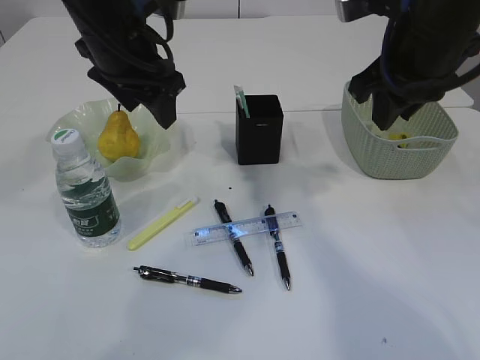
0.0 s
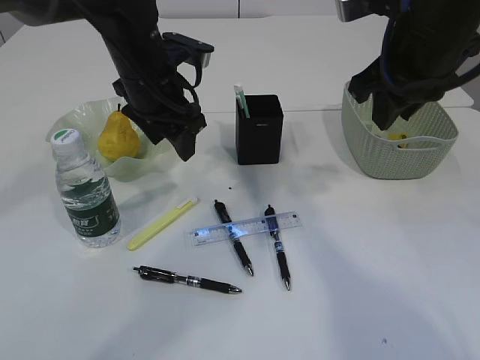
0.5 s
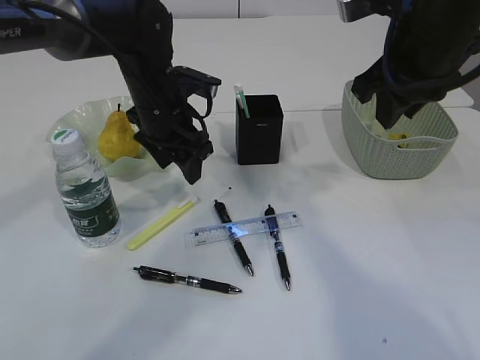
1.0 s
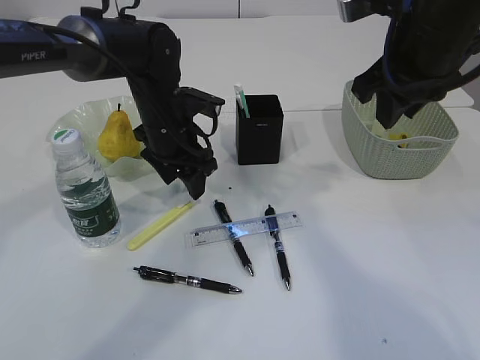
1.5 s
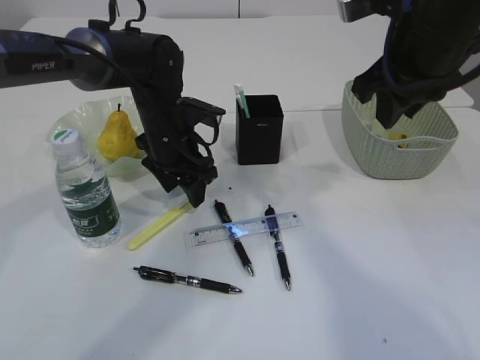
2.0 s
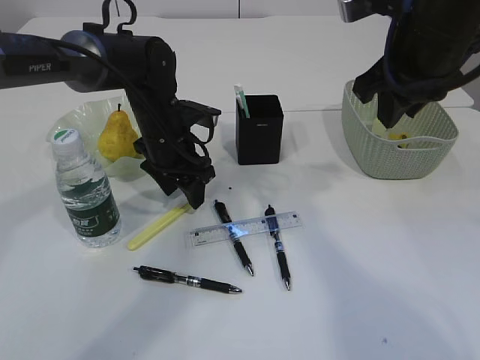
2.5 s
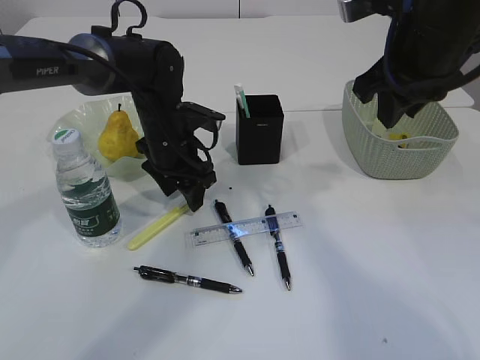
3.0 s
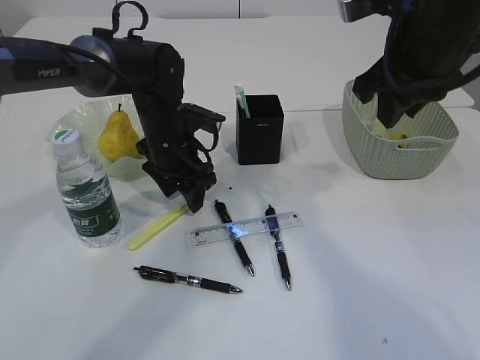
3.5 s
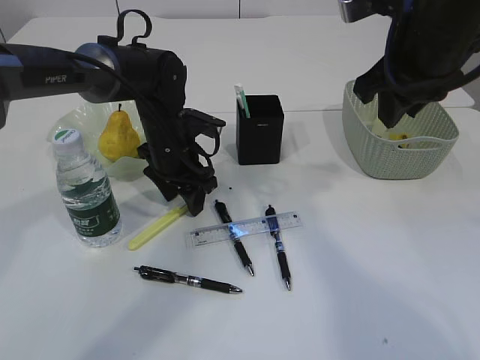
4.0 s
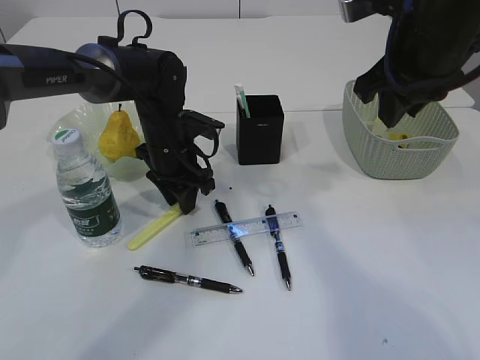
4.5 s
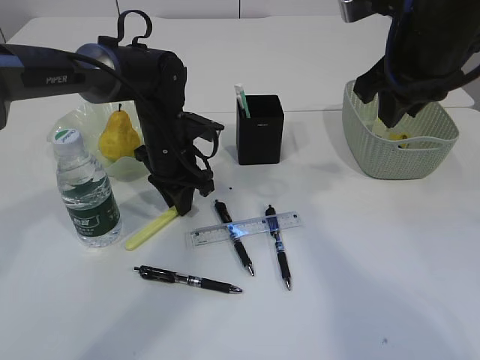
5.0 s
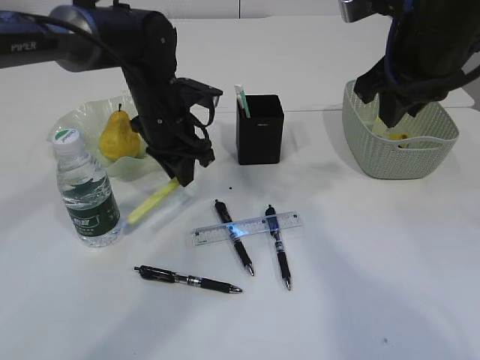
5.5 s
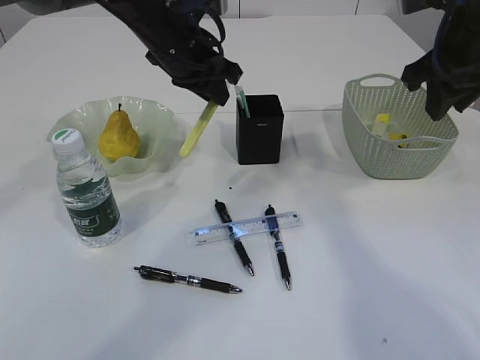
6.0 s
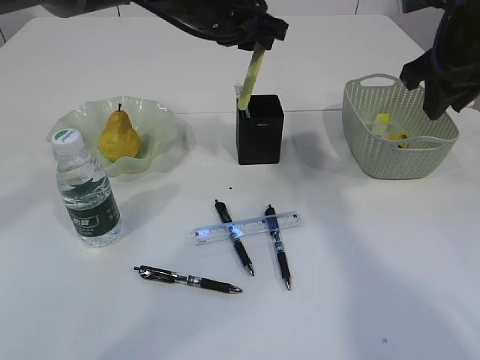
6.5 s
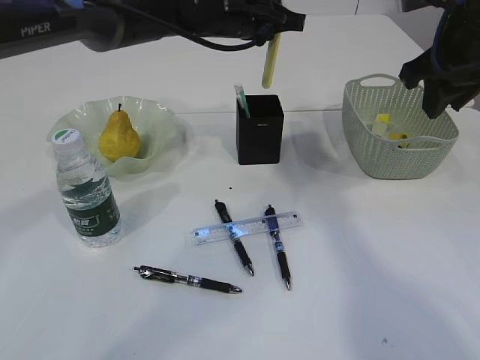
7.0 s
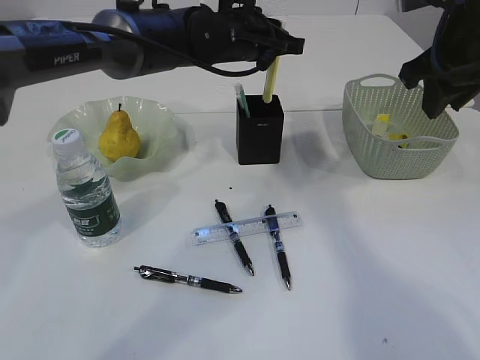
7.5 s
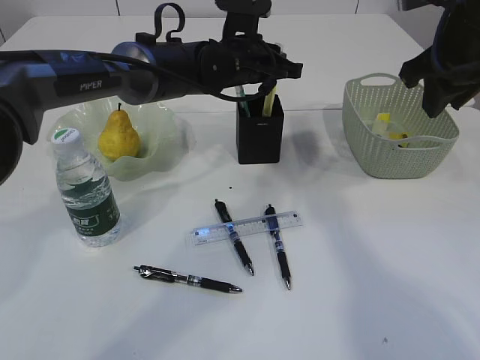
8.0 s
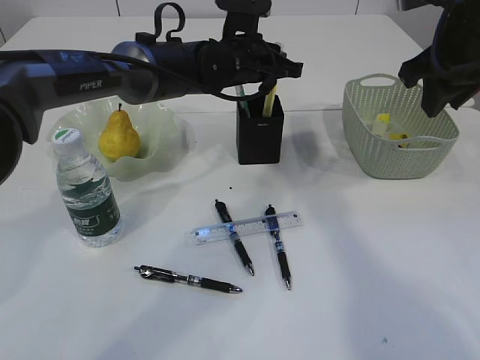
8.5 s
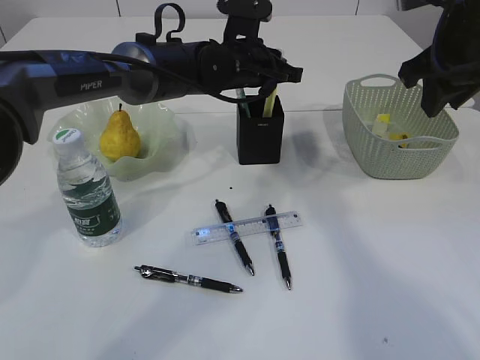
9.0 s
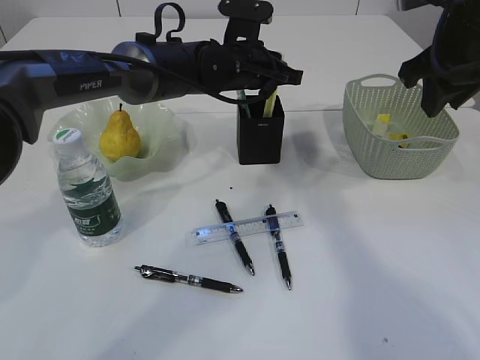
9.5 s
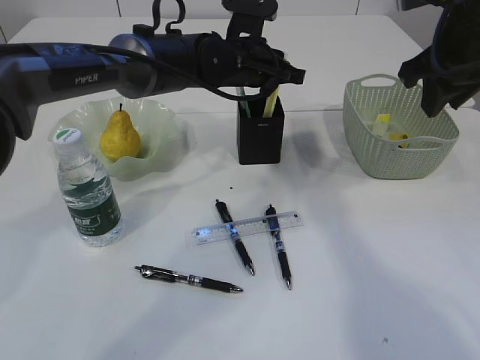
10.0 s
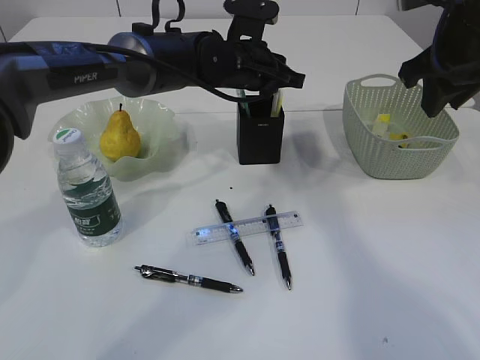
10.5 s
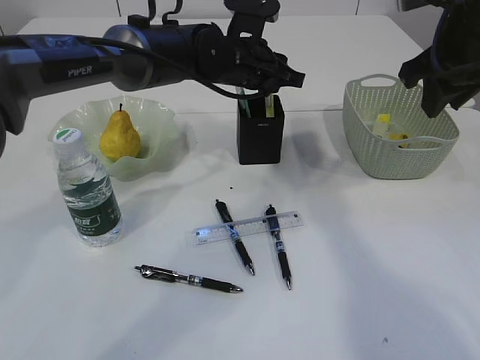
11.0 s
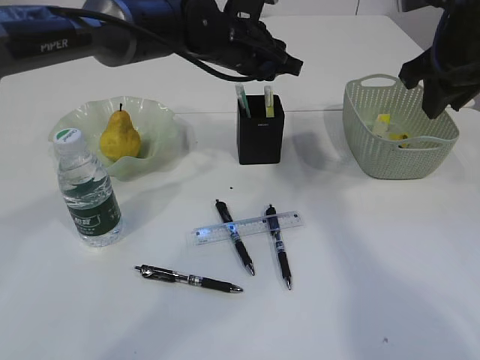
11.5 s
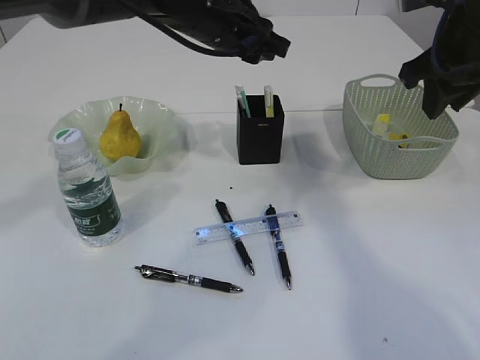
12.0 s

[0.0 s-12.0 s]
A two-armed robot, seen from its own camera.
Step, 0.0 to 5.5 s: pick up the yellow knife.
Step, 6.0 to 11.0 s: place the yellow knife into the pen holder.
0.0 to 2.0 s: The left gripper shifts about 15 cm downward.
2.0 to 4.0 s: The grippers move only a little.
4.0 to 6.0 s: The left gripper goes about 15 cm upward, and closes up. The right gripper heads to the right, covering roughly 5 cm.
6.0 to 8.0 s: The left gripper moves to the right and downward, some 10 cm.
8.0 to 10.0 s: There are only small adjustments of the grippers.
10.0 to 12.0 s: The left gripper goes about 10 cm upward.

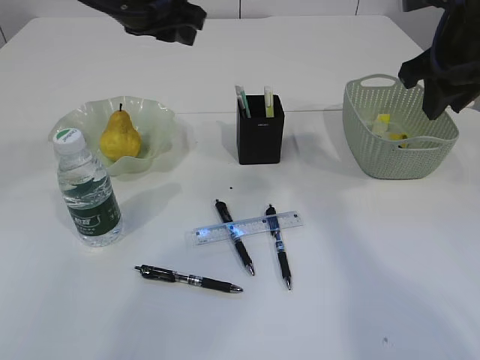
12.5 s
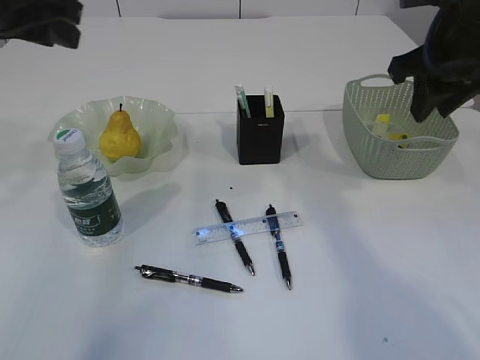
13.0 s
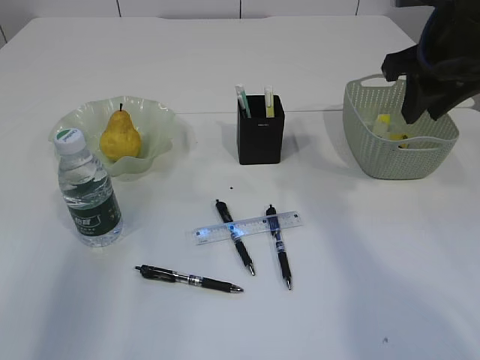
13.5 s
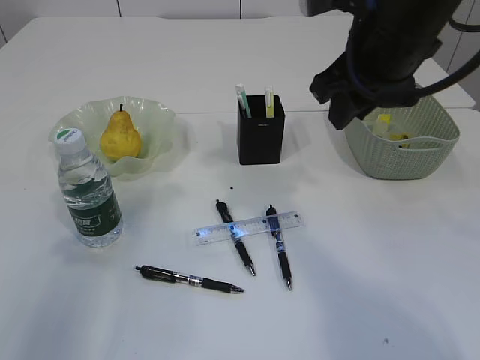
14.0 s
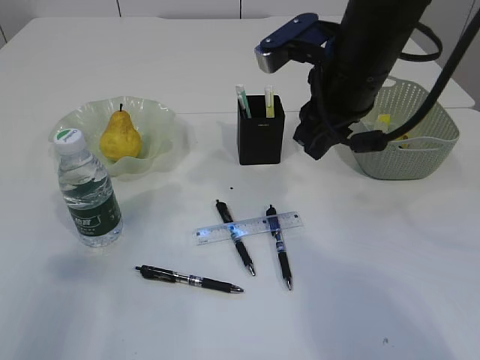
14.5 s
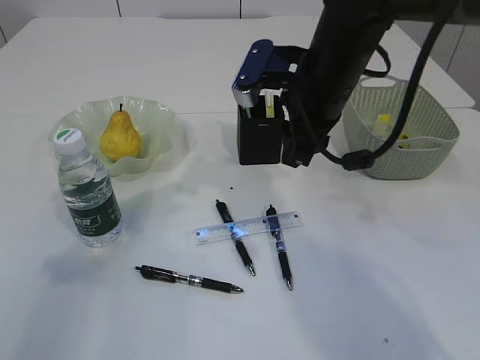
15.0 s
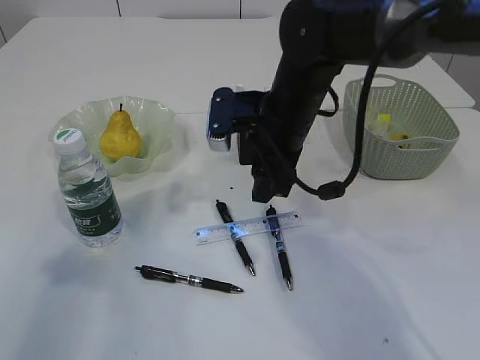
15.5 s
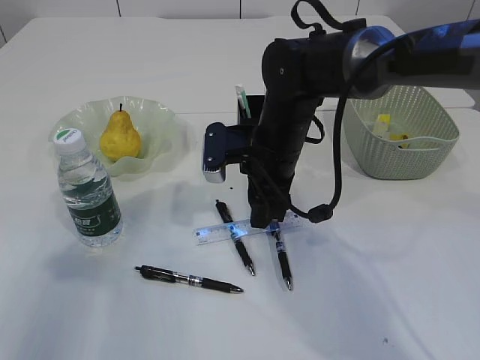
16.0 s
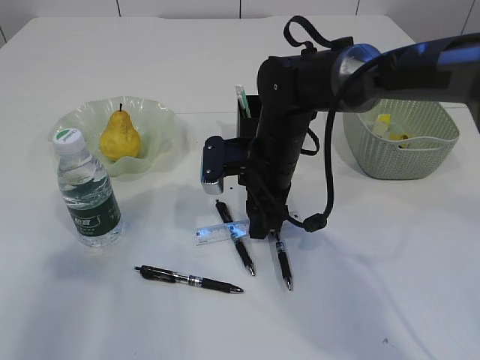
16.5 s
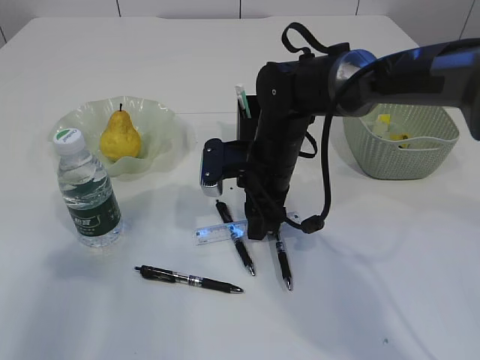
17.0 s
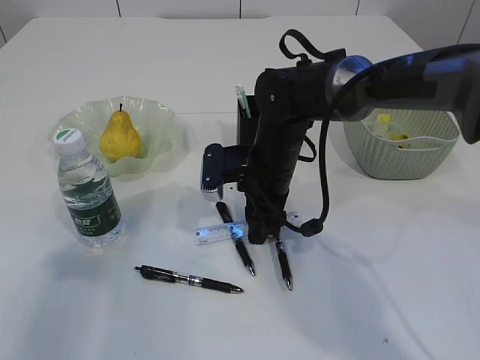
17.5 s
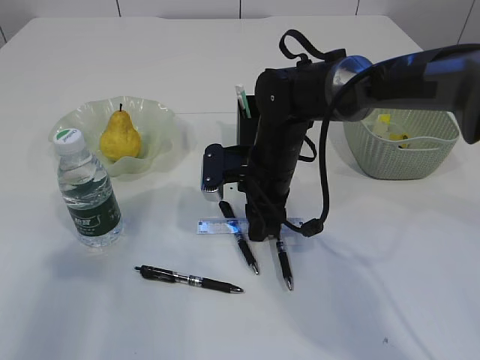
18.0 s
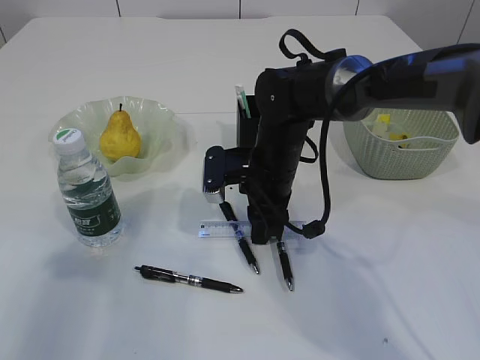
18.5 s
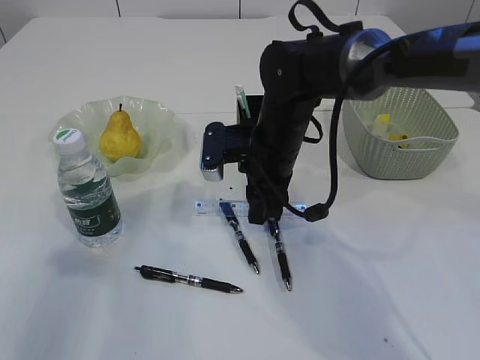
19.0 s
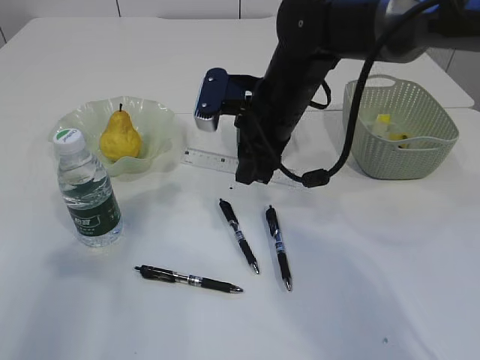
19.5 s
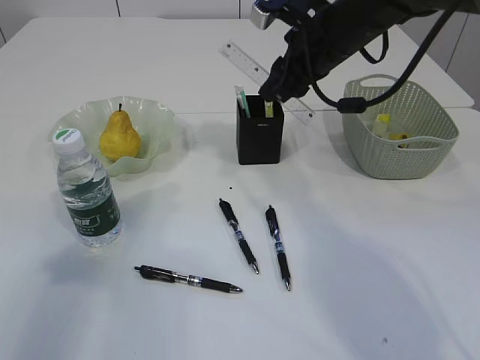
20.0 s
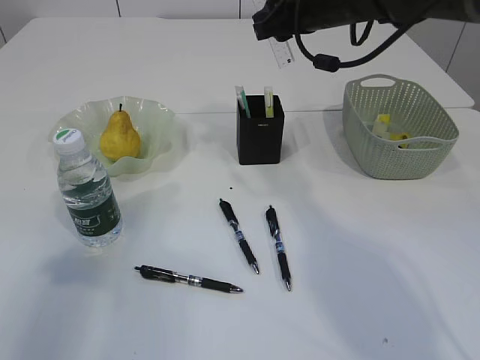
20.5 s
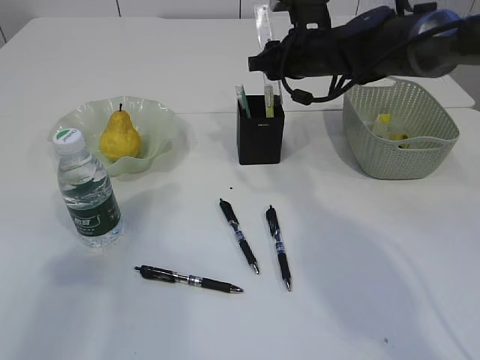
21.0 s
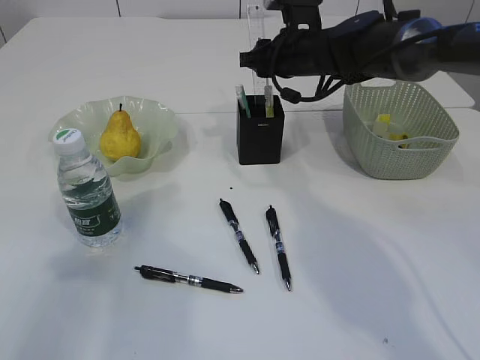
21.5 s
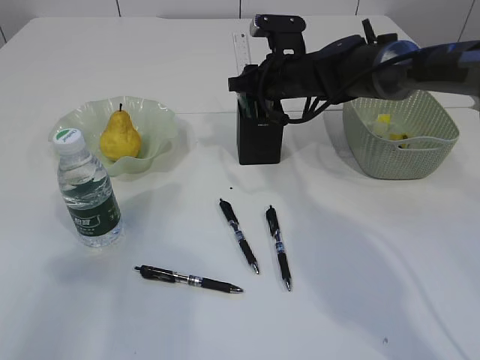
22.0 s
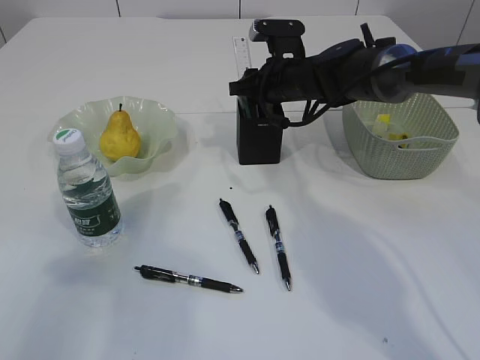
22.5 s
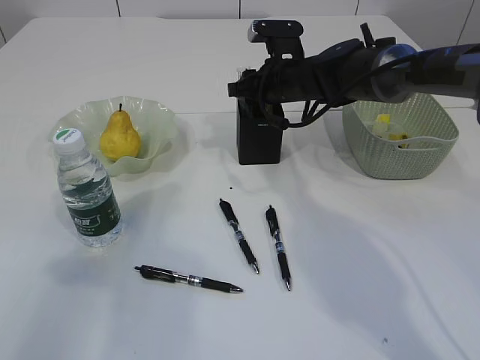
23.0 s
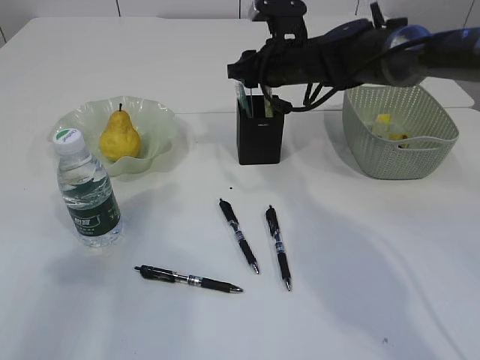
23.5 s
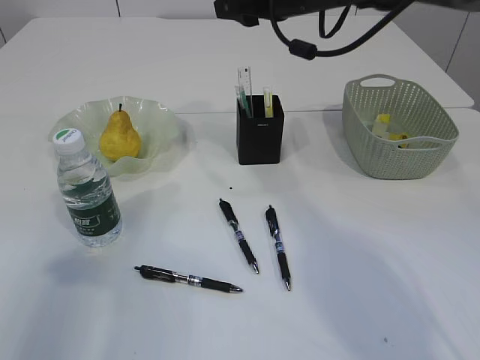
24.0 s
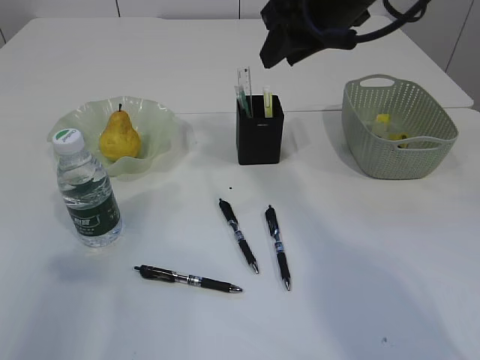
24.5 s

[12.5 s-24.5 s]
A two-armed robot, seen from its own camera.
Step, 12.5 to 19.0 s: pick up the ruler.
Step, 19.5 to 23.5 s: Place the ruler into the pen holder.
12.5 to 14.5 s: The left gripper travels backward and to the left by about 30 cm, and opens its fingers, while the right gripper is displaced to the left by approximately 10 cm.
14.5 to 16.5 s: The right gripper is displaced downward and to the left by roughly 15 cm.
16.5 to 18.5 s: Neither gripper changes place.
18.5 to 20.5 s: The right gripper moves upward, forward and to the right, about 20 cm.
20.5 to 22.5 s: The right gripper goes some 10 cm downward.
22.5 to 24.5 s: The right gripper heads upward and backward, covering approximately 20 cm.

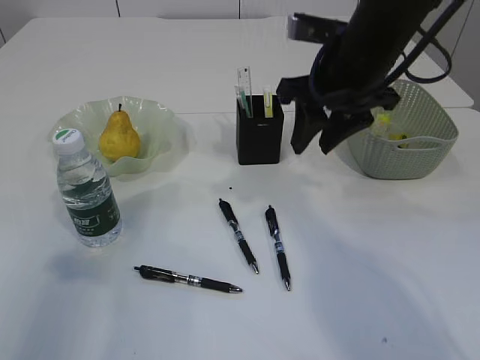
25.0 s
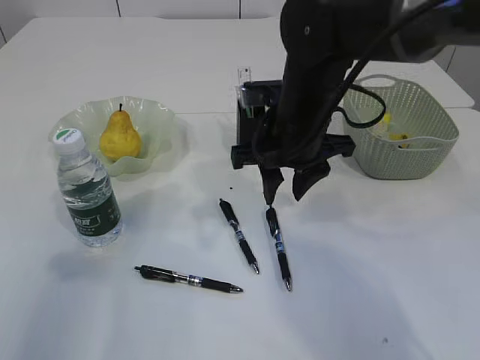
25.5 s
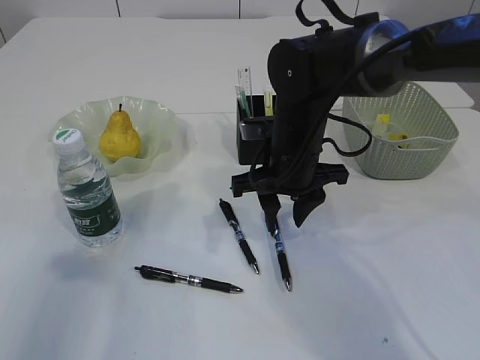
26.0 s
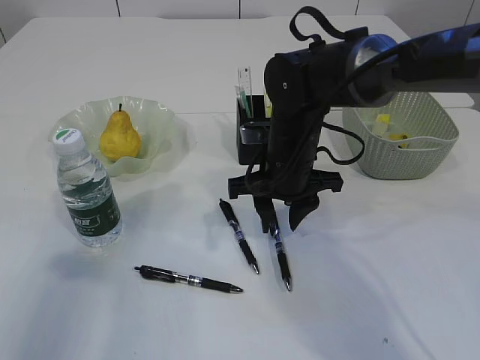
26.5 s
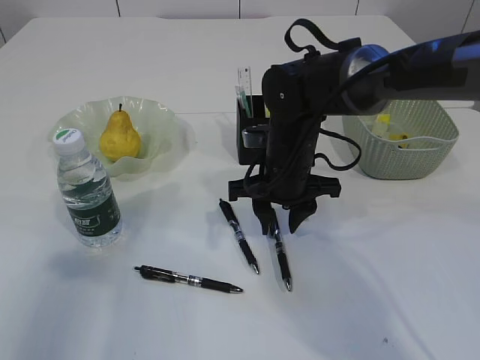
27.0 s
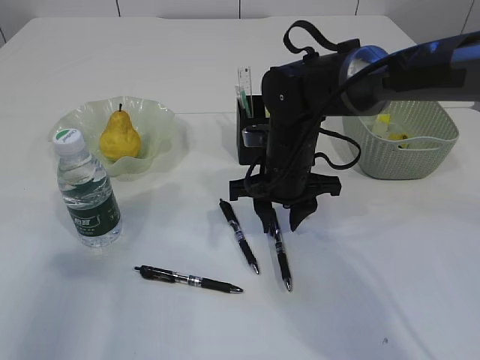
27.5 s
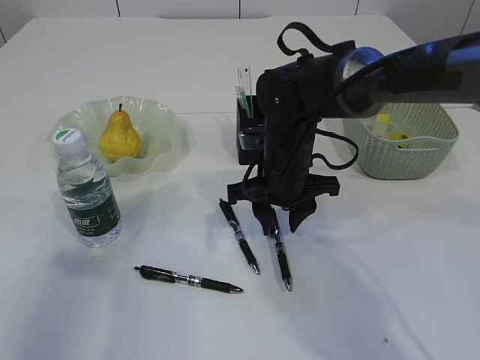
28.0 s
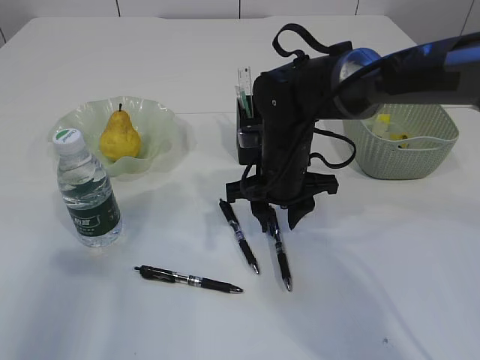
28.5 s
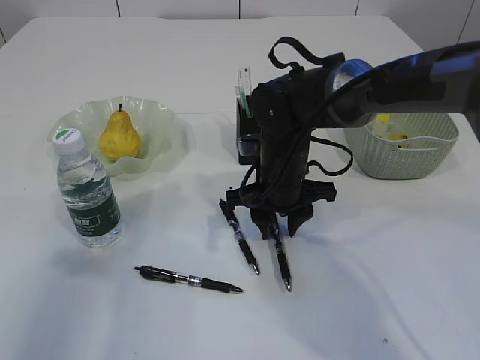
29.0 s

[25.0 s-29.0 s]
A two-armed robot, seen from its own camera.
25.0 to 27.0 s: The right gripper heads downward and to the left, covering about 15 cm.
27.0 to 29.0 s: The grippers stay close to where they were, moving slightly.
